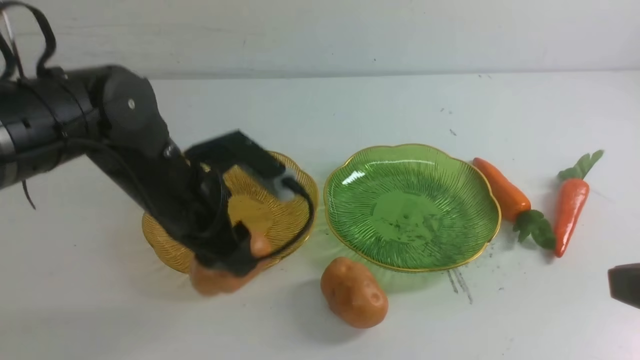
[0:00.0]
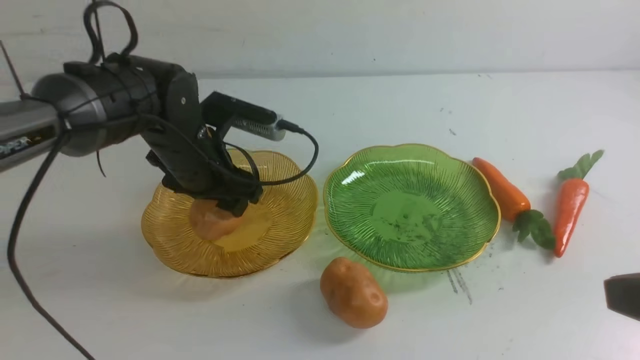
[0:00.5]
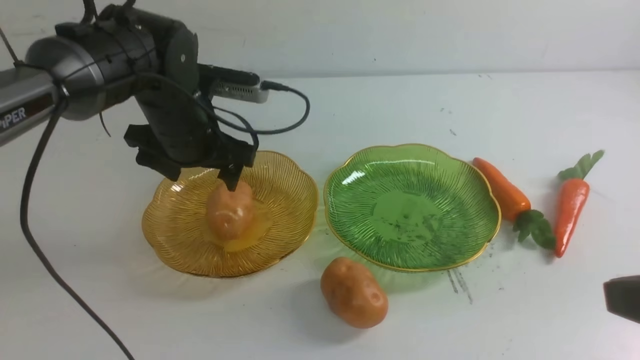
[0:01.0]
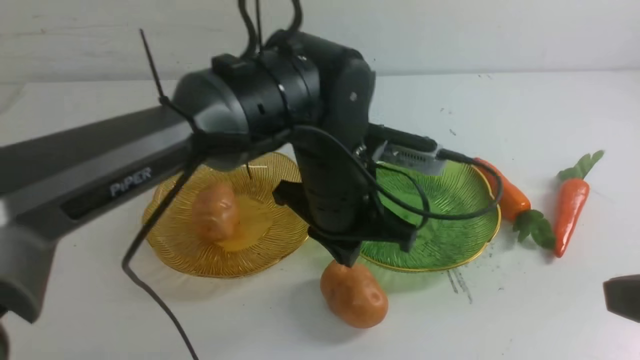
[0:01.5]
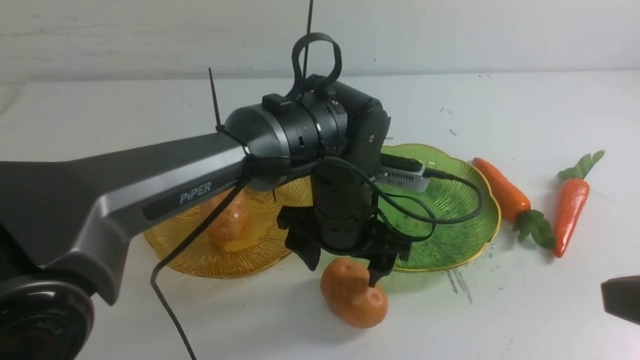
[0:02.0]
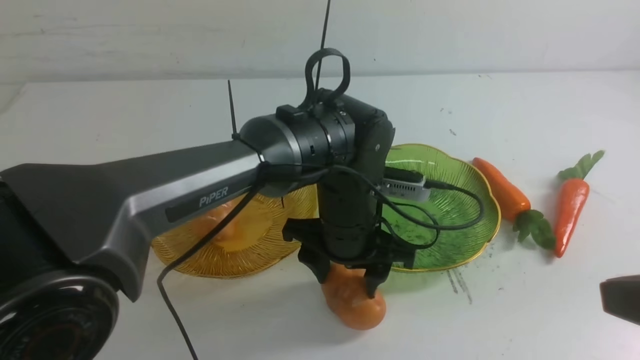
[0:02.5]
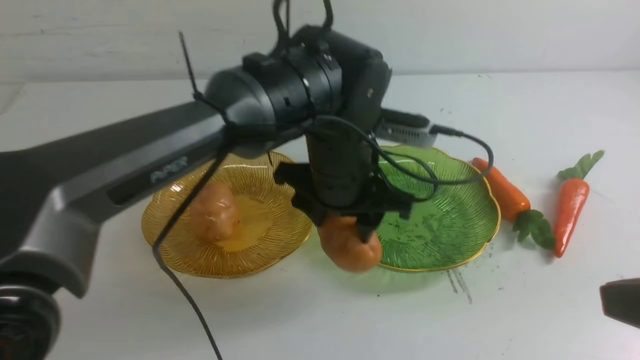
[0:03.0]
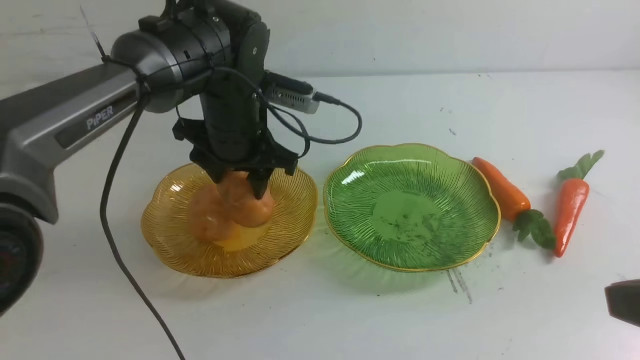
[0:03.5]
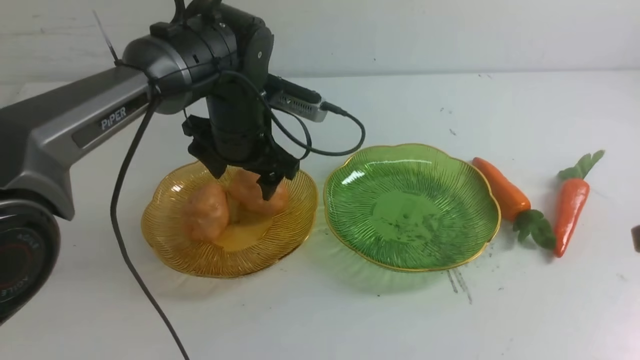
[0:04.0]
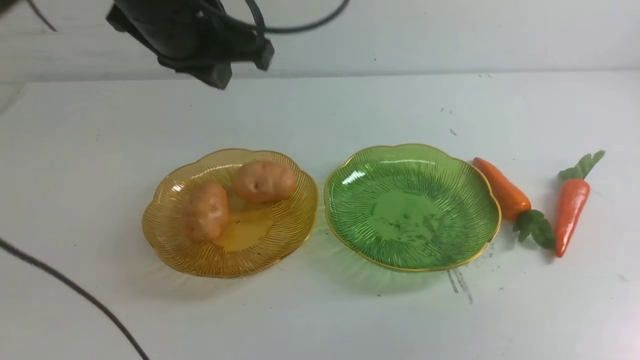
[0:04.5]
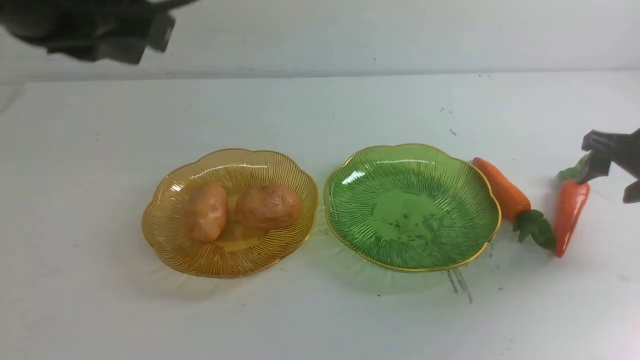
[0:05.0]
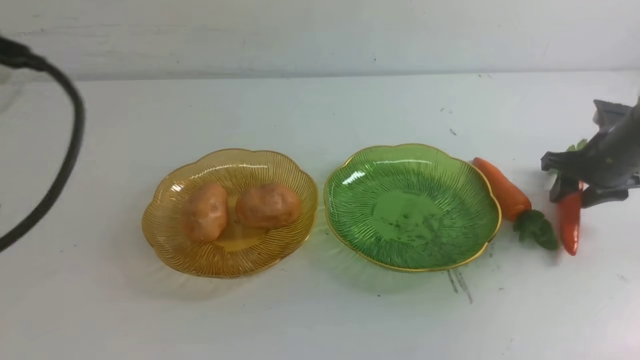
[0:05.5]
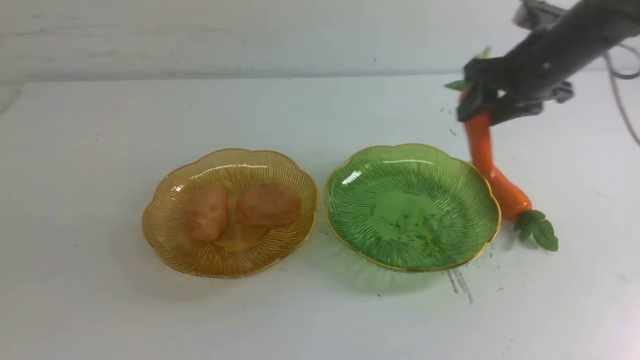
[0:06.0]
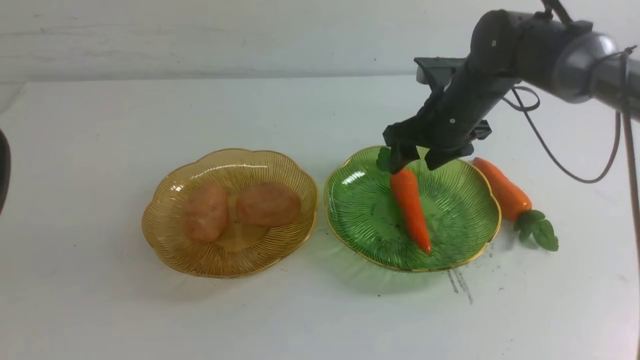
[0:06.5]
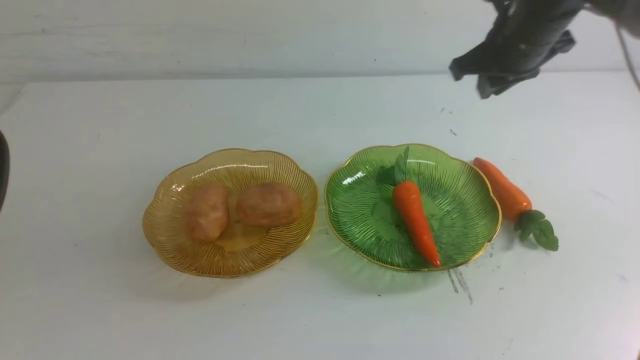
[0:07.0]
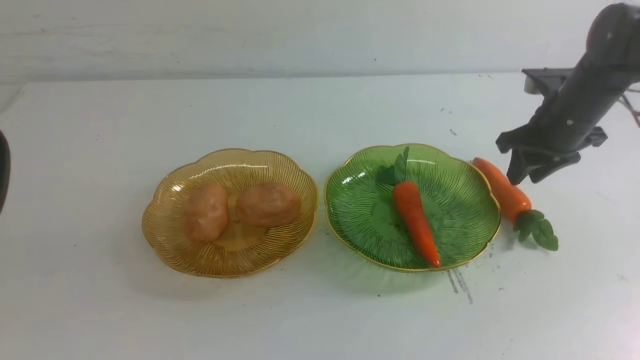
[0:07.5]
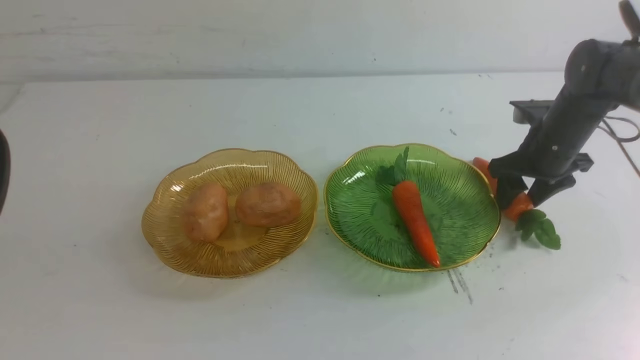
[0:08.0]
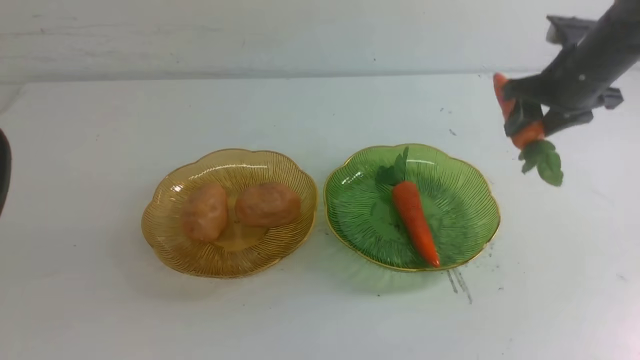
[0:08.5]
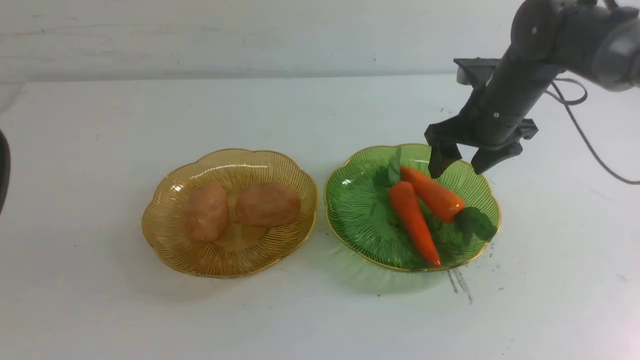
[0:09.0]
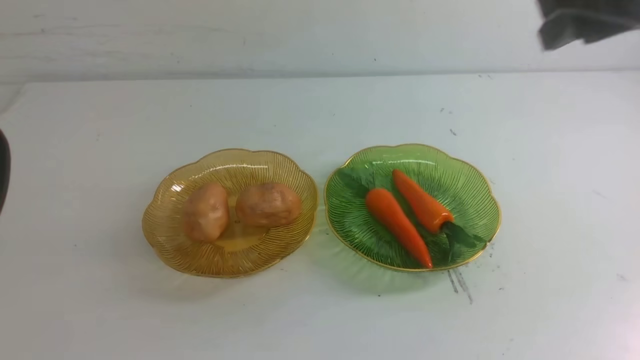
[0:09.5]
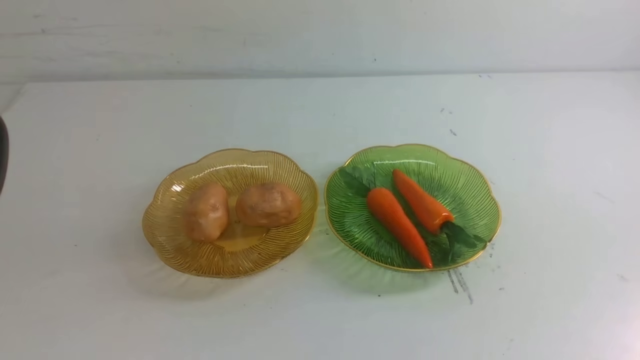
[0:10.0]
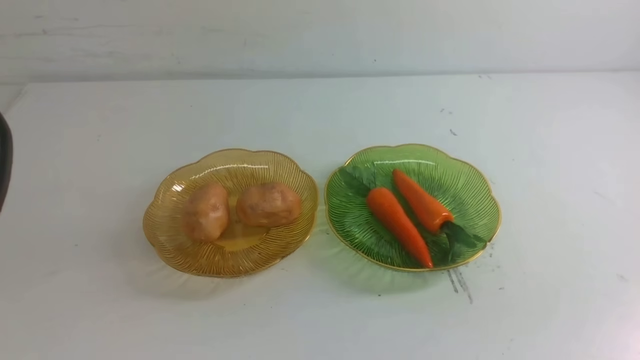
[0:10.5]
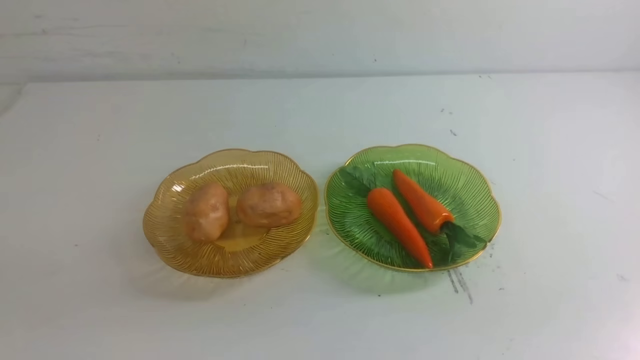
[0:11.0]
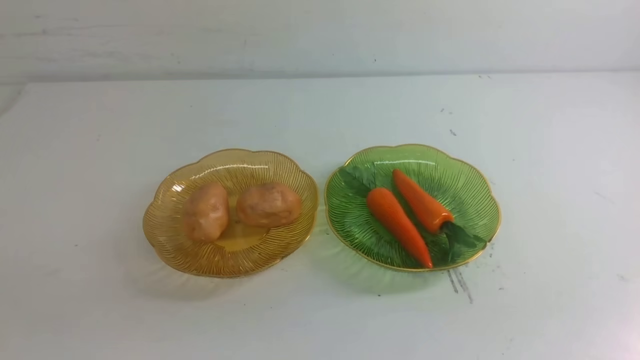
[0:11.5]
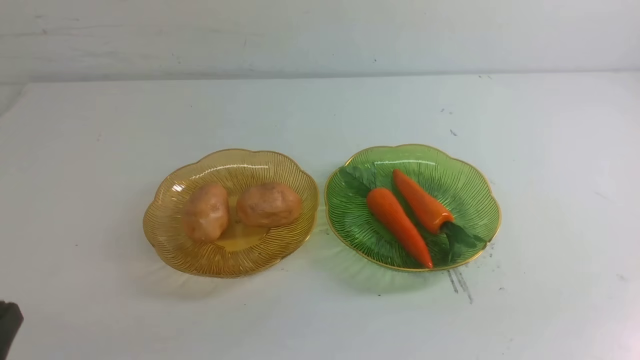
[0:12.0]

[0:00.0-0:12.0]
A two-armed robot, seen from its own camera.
Step, 0:00.0 to 0:04.0: Grab a potato with your left arm and put it on the left plate.
Step, 0:04.5 to 0:09.0: use the right arm to grab a carrot and put it into the right plate.
0:00.0 to 0:02.0: The left gripper heads to the right, covering some 15 cm, and closes and opens again.
0:02.0 to 0:04.0: The left gripper shifts about 15 cm to the left, forward and upward, and closes its fingers. Meanwhile the right gripper shifts roughly 10 cm forward.
0:04.0 to 0:06.0: The right gripper is displaced forward, to the left and downward by approximately 30 cm, and opens its fingers; the left gripper goes some 35 cm backward, to the left and upward, and closes up.
0:06.0 to 0:08.0: The right gripper travels to the right and downward by about 15 cm, and closes and opens again.
0:08.0 to 0:10.0: The right gripper is displaced backward by approximately 40 cm, and closes.
0:10.0 to 0:12.0: The left gripper shifts roughly 20 cm downward.
